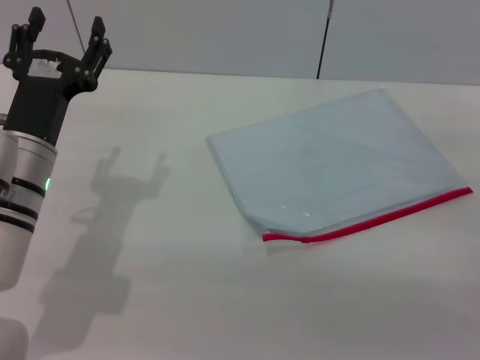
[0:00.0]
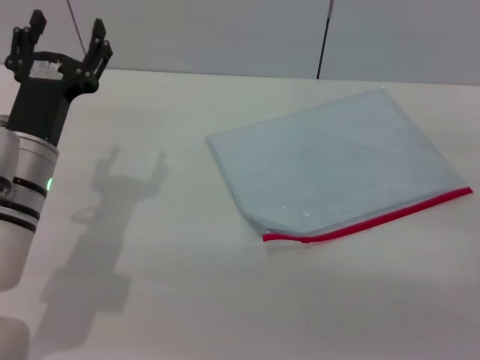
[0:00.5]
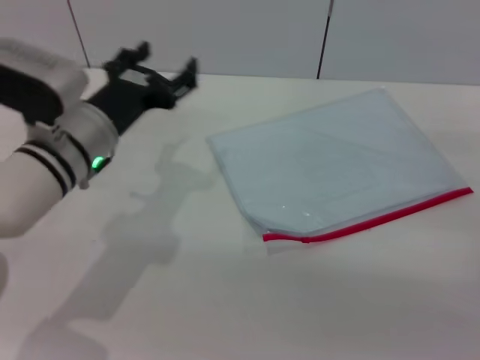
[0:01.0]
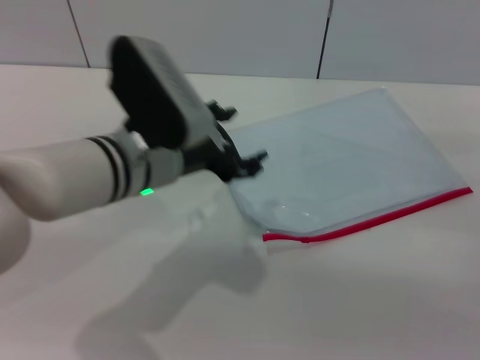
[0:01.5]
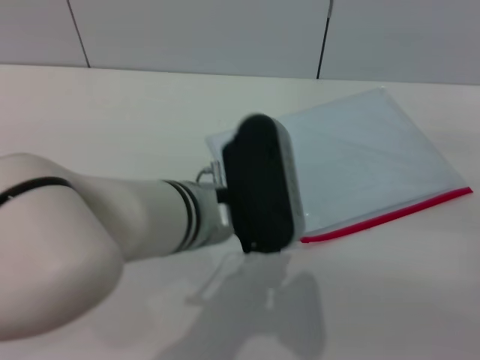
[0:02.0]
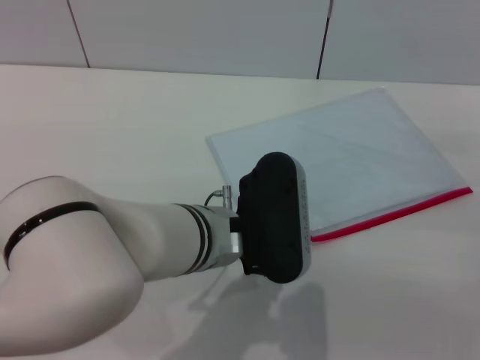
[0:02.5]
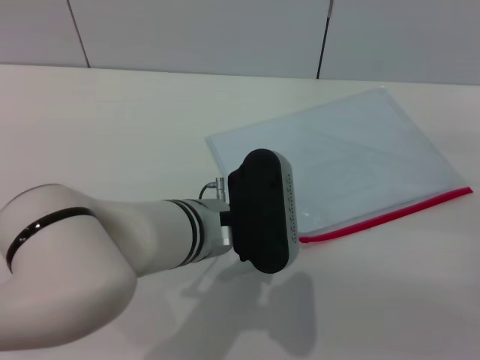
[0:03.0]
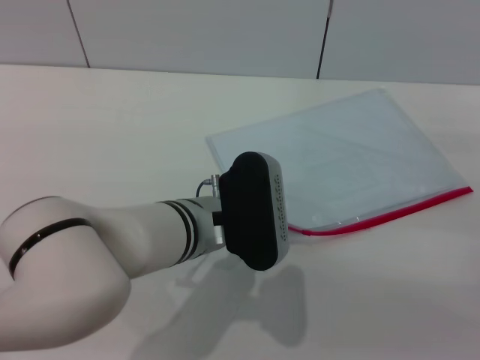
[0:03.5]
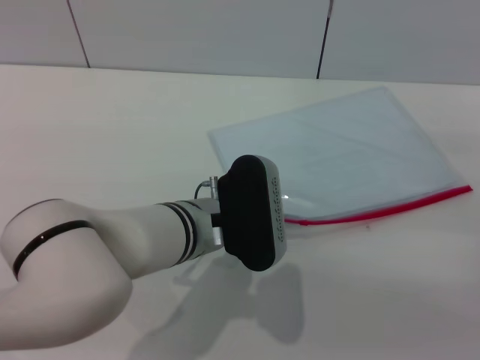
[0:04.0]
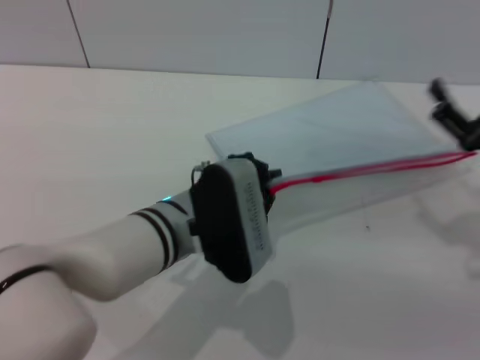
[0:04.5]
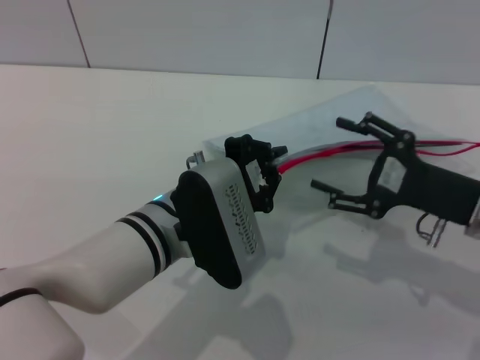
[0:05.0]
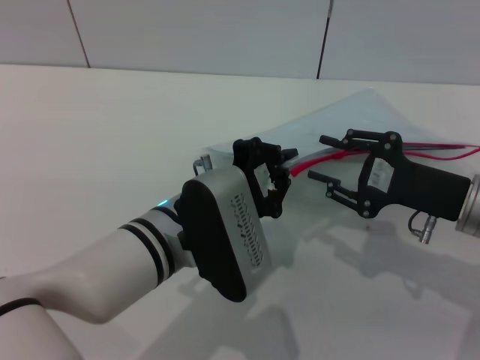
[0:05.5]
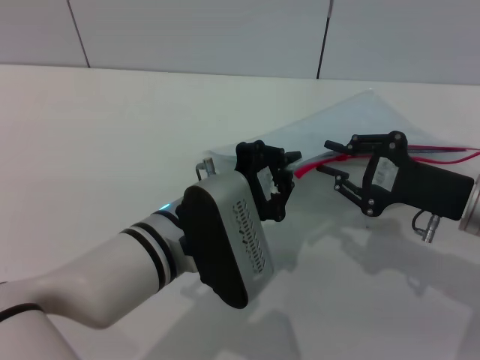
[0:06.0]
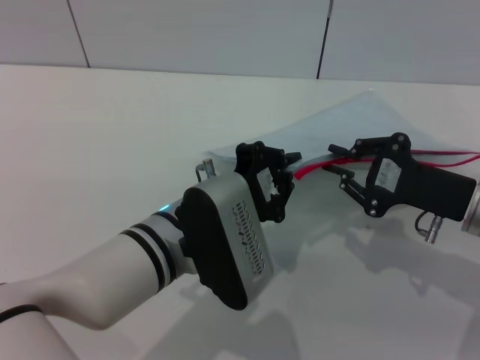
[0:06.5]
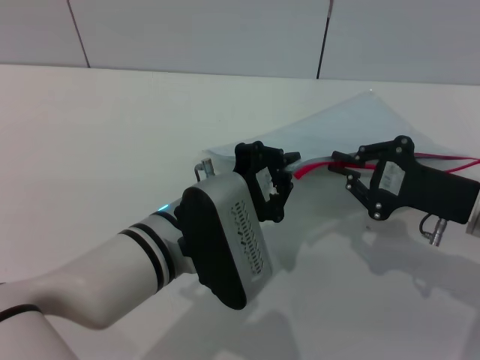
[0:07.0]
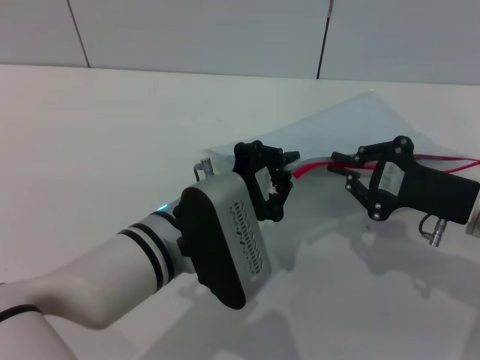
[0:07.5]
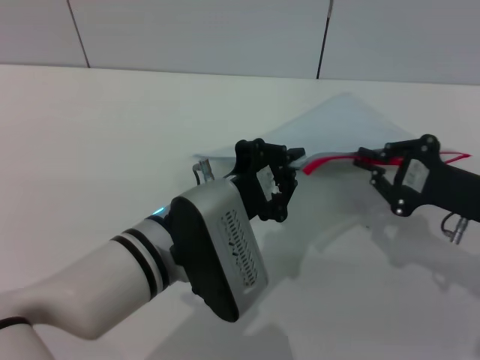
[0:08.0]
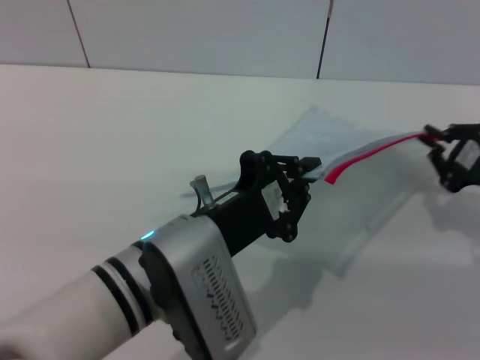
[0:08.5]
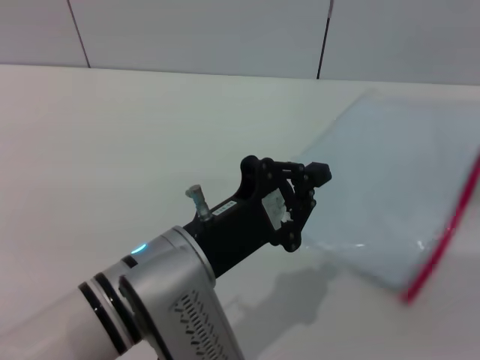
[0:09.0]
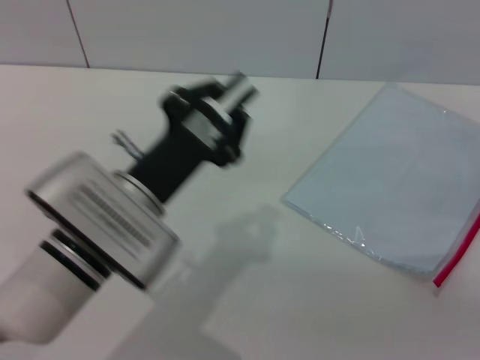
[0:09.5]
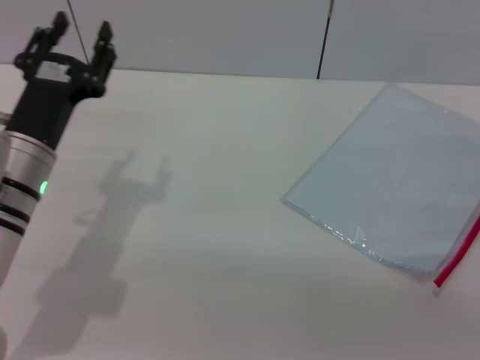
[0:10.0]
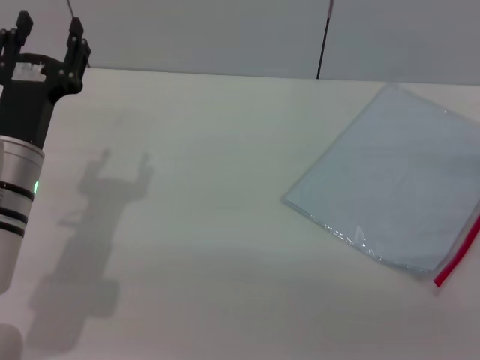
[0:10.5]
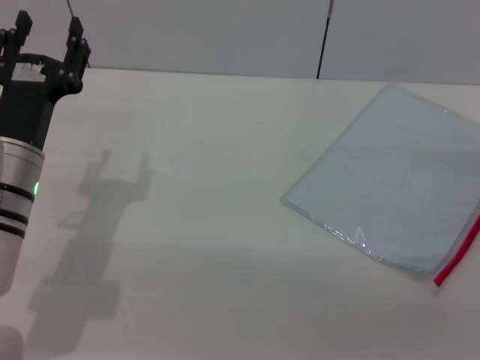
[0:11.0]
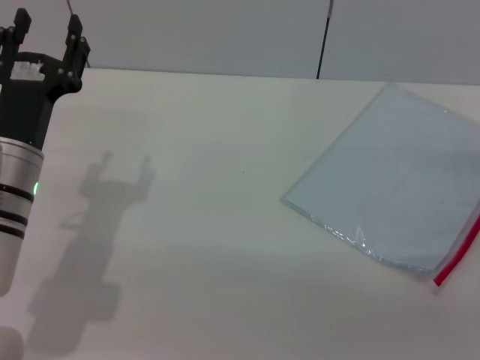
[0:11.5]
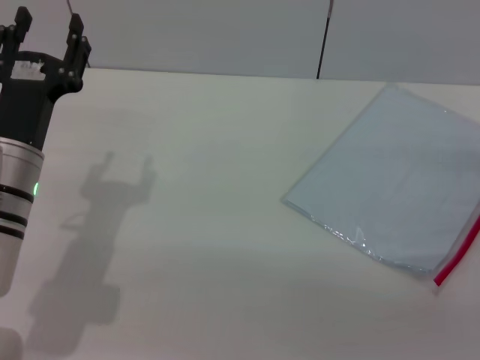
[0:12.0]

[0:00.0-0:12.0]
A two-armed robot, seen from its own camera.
Step, 0:00.0 to 0:05.0: Pick up the transparent plastic bag with the left gripper.
Step, 0:05.5 to 0:08.5: Pulling up the zipper on the transparent plastic bag with the right gripper to close it.
Step, 0:09.0 to 0:09.5: Place the transparent plastic bag.
0:00.0 to 0:02.0: The left gripper moves to the right, approximately 15 cm.
0:02.0 to 0:04.0: The left gripper is displaced downward by about 5 cm, and closes up.
0:04.0 to 0:06.0: The right gripper goes roughly 10 cm to the left, and closes its fingers.
0:06.0 to 0:08.0: There are only small adjustments of the grippers.
0:08.0 to 0:10.0: The right gripper travels to the right by some 10 cm, and opens its fingers. The left gripper moves to the left, about 15 cm, and opens up.
0:10.0 to 0:12.0: The grippers stay close to where they were, moving slightly.
